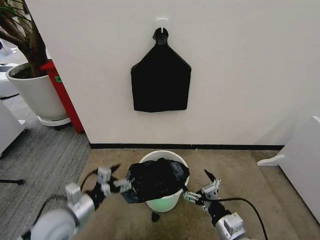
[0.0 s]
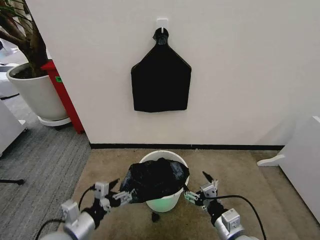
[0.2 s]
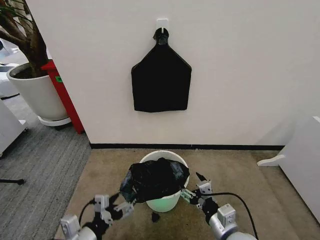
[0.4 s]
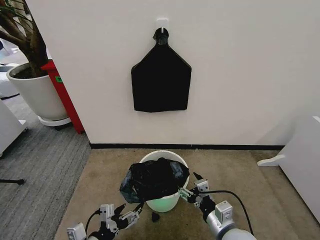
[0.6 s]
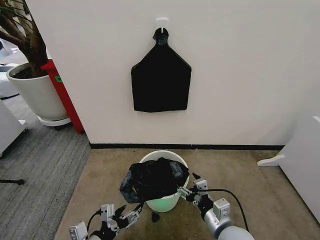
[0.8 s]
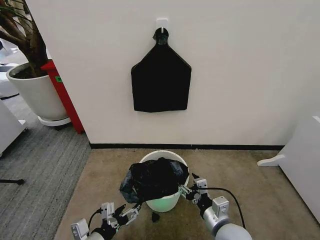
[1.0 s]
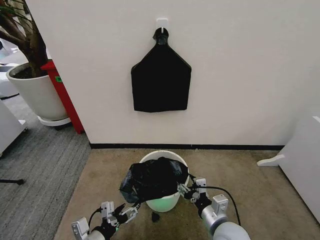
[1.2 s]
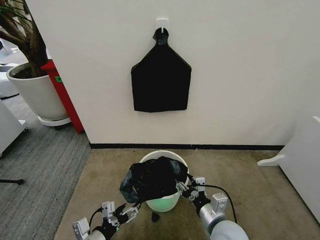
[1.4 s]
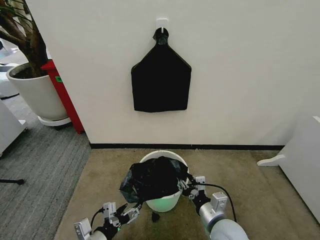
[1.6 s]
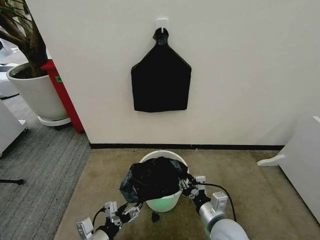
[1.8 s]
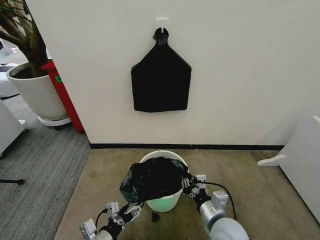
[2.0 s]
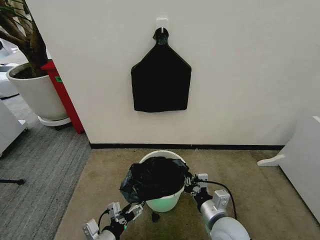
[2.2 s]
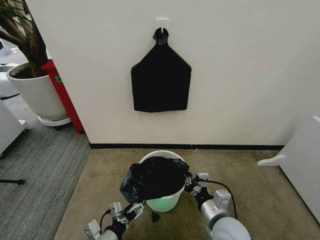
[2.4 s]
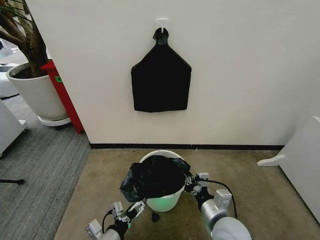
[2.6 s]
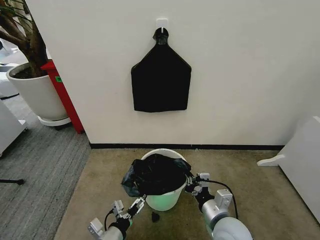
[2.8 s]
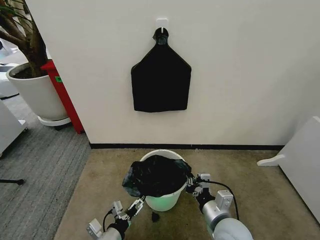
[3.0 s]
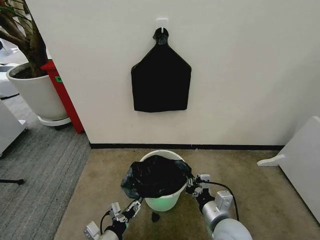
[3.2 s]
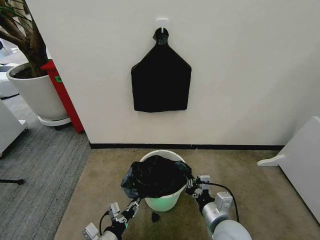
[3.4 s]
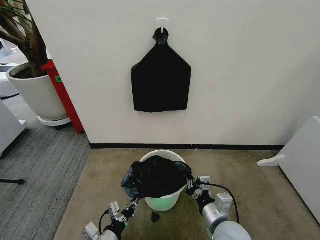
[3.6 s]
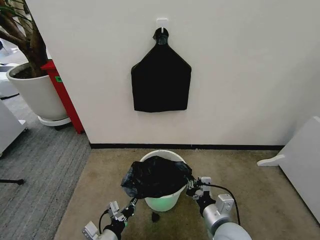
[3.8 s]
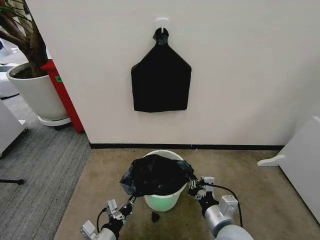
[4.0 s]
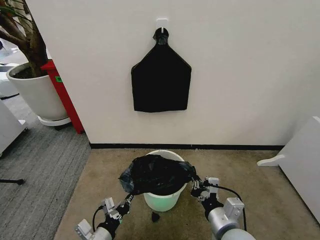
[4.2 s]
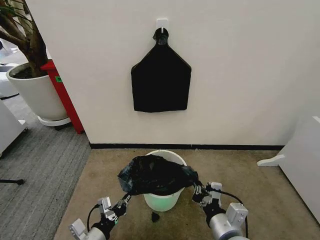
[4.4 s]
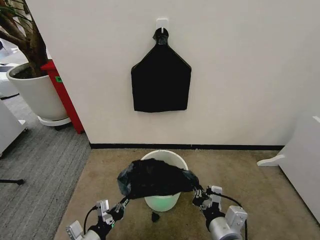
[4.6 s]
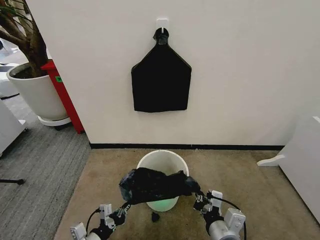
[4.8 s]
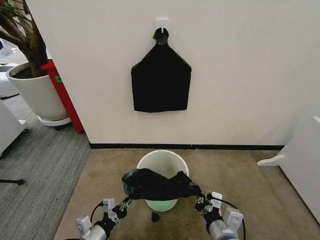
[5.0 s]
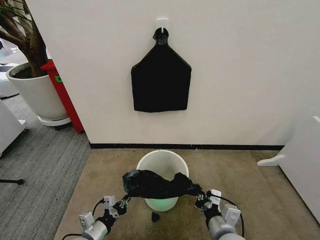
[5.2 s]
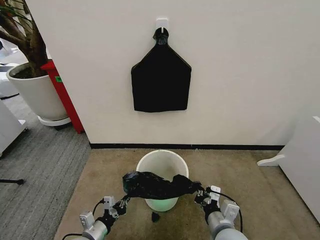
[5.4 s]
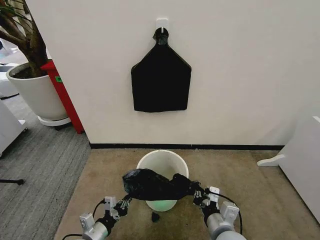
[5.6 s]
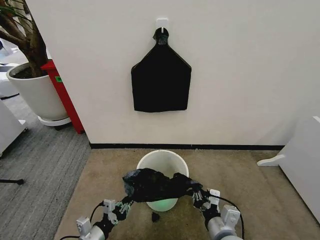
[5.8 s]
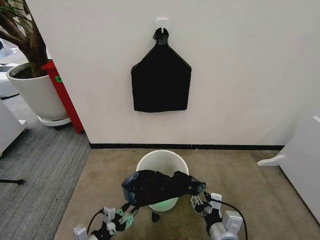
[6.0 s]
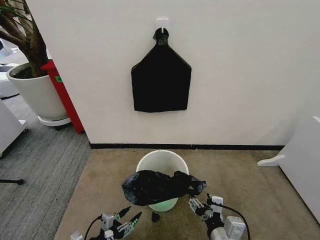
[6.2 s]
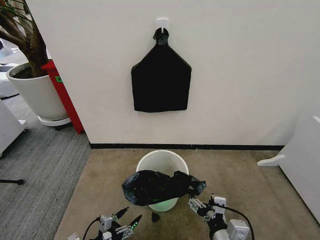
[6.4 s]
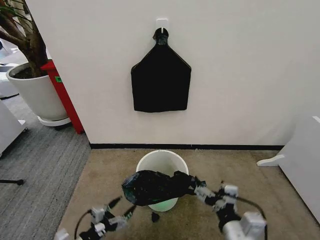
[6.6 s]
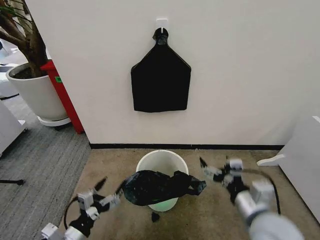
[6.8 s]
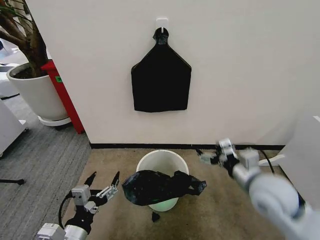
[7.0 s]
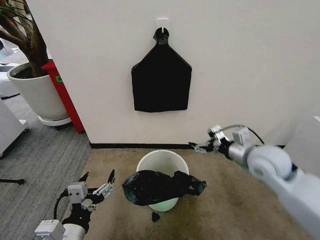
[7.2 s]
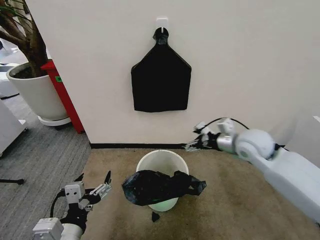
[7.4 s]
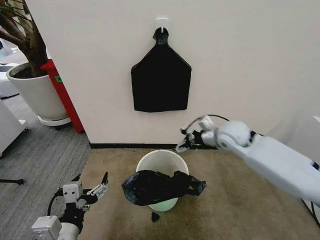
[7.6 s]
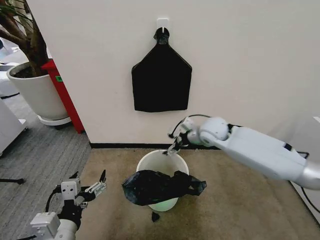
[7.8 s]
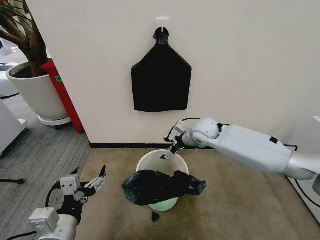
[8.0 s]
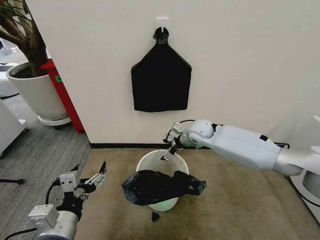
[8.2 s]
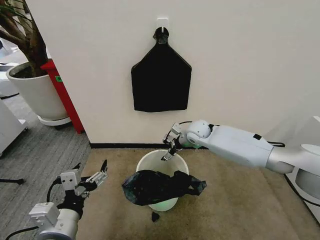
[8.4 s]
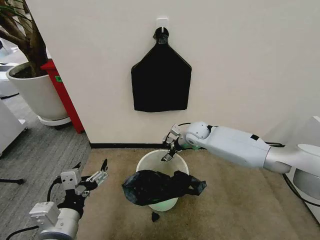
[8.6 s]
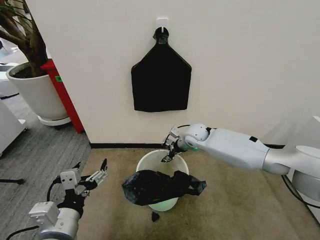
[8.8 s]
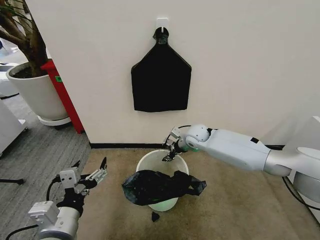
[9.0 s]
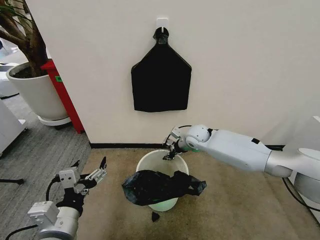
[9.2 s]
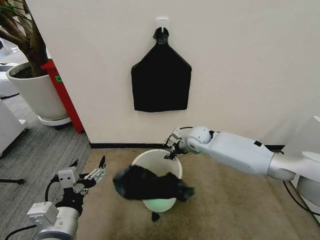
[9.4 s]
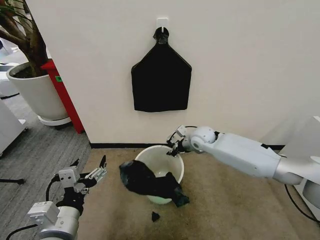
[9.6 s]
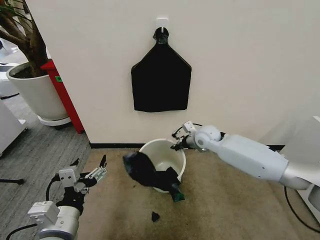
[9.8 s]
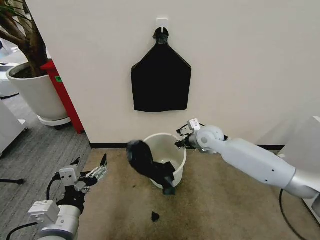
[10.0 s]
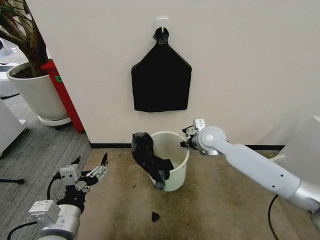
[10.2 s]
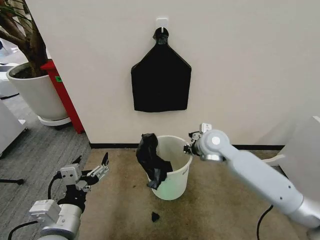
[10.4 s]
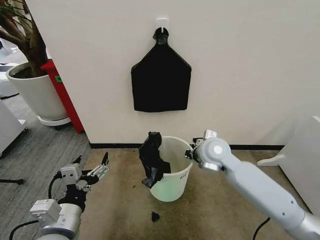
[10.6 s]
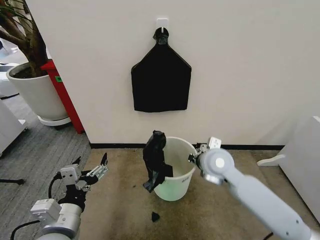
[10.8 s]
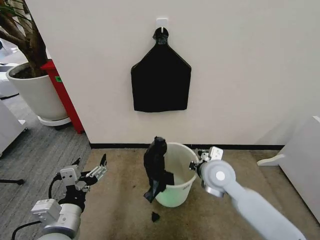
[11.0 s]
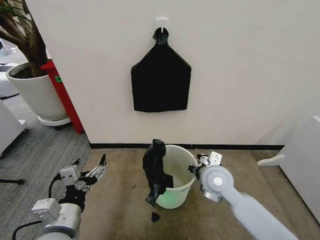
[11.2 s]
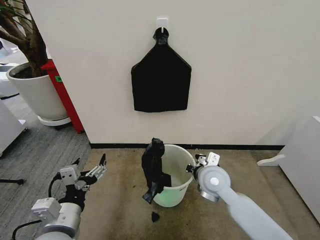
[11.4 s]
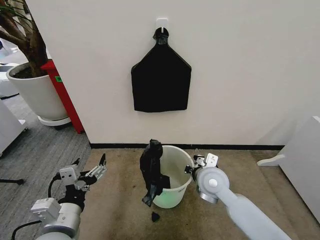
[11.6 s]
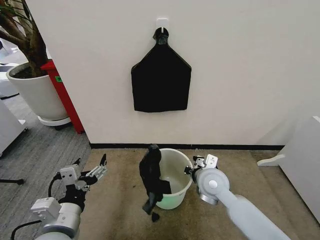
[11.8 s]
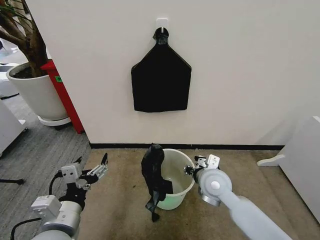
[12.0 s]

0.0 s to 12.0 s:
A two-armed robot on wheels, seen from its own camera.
Task of the whole recording: Place the garbage bag over the trash bin.
0.0 to 1.6 s: The left gripper moves backward and downward, about 10 cm. The right gripper ends up about 5 cm from where it was, and closes its fingers.
1.6 to 3.0 s: The right gripper closes up. Meanwhile the left gripper moves some 5 cm.
3.0 to 4.4 s: The left gripper closes. The right gripper shifts by roughly 5 cm.
4.4 to 6.0 s: The right gripper opens its fingers, while the left gripper moves downward, some 5 cm, and opens its fingers.
6.0 to 7.6 s: The left gripper shifts roughly 20 cm upward, and opens up; the right gripper shifts some 35 cm forward and upward, and opens.
7.6 to 9.0 s: The right gripper shifts some 15 cm downward, to the left and forward, and closes its fingers.
9.0 to 10.4 s: The right gripper is displaced backward and upward by about 10 cm, and closes up.
10.4 to 12.0 s: The right gripper travels backward and downward by about 15 cm, and opens up.

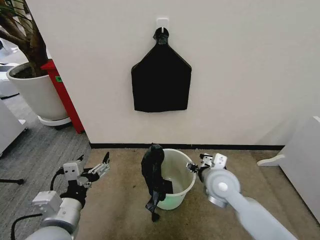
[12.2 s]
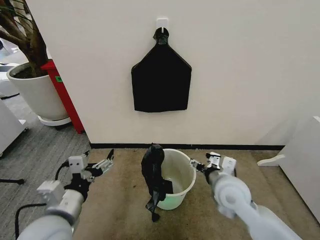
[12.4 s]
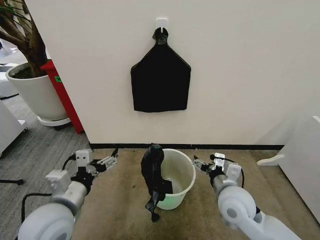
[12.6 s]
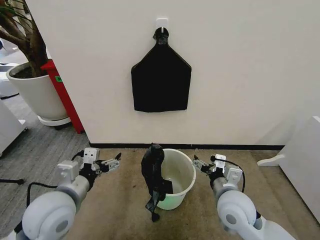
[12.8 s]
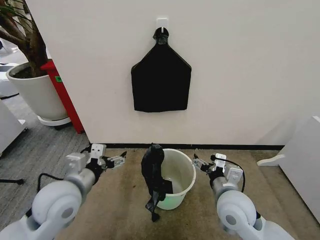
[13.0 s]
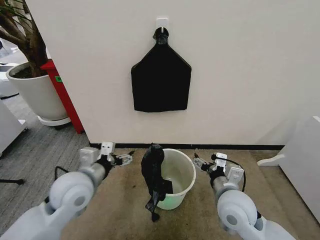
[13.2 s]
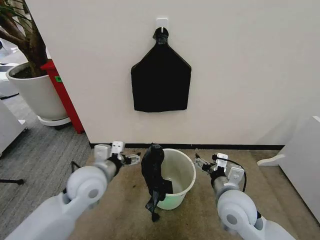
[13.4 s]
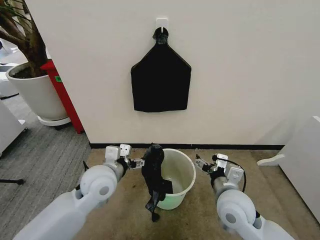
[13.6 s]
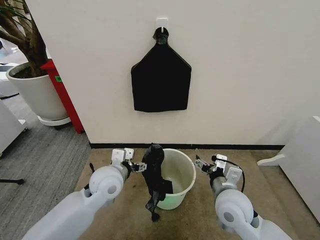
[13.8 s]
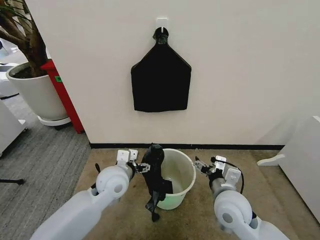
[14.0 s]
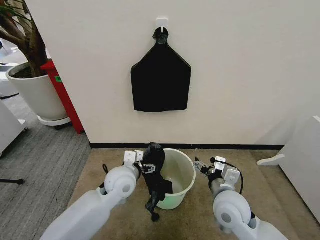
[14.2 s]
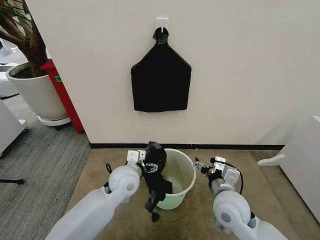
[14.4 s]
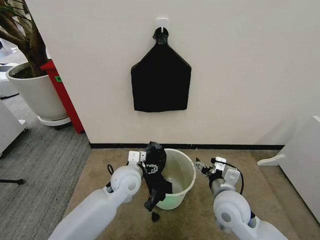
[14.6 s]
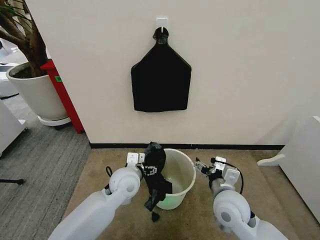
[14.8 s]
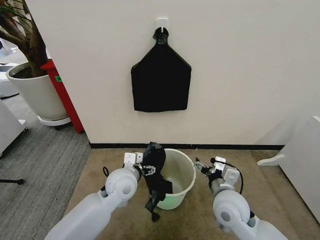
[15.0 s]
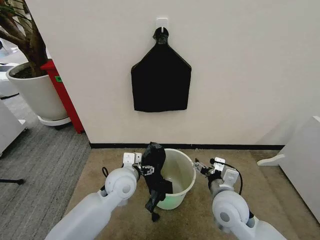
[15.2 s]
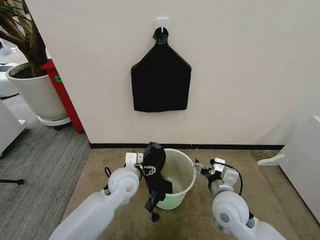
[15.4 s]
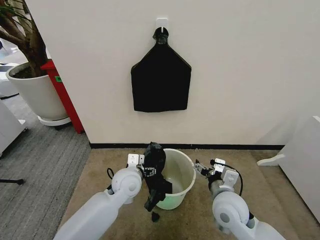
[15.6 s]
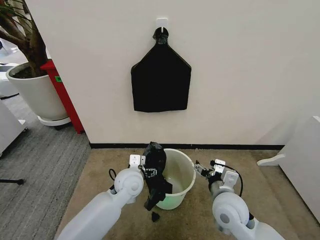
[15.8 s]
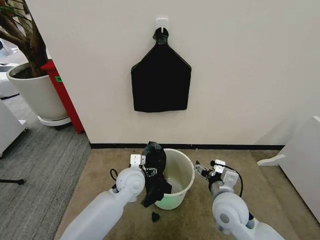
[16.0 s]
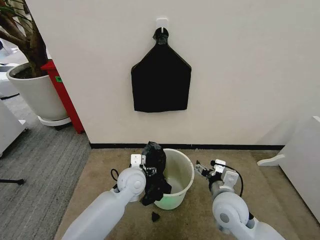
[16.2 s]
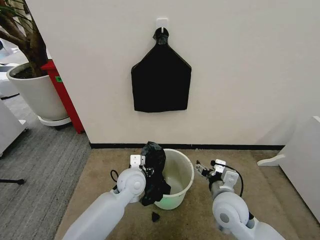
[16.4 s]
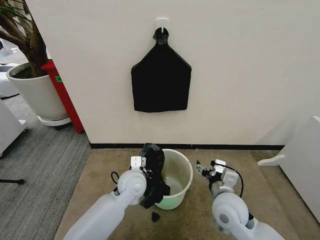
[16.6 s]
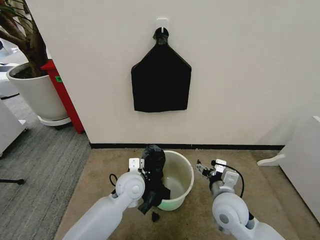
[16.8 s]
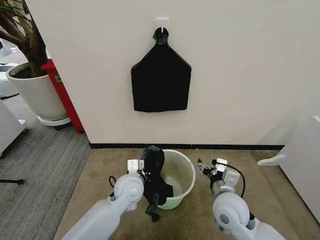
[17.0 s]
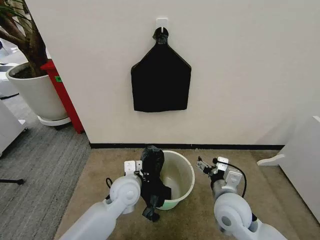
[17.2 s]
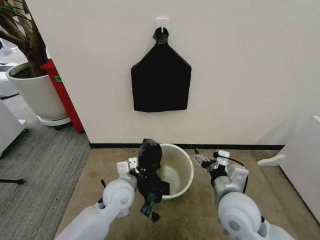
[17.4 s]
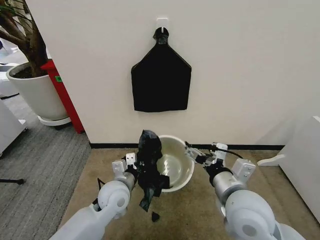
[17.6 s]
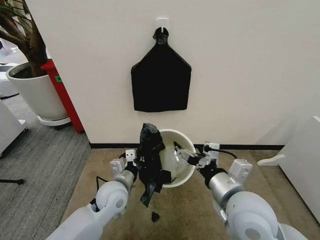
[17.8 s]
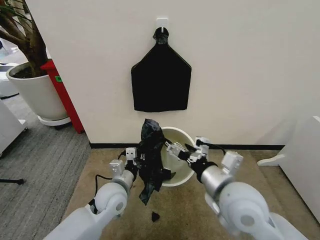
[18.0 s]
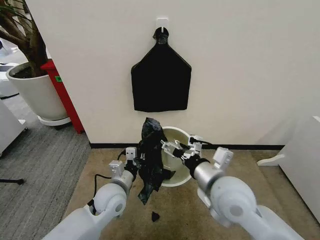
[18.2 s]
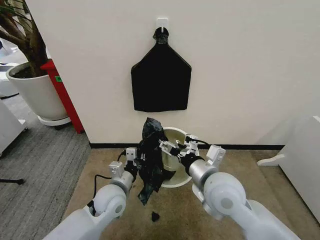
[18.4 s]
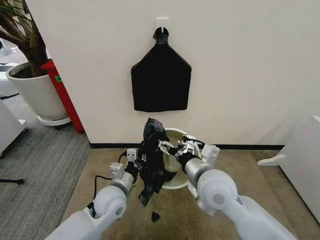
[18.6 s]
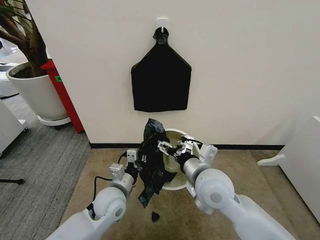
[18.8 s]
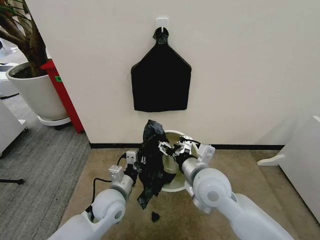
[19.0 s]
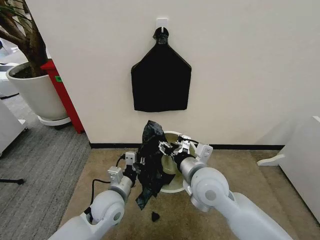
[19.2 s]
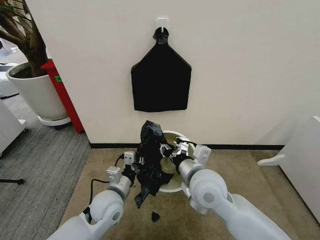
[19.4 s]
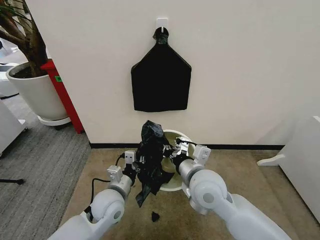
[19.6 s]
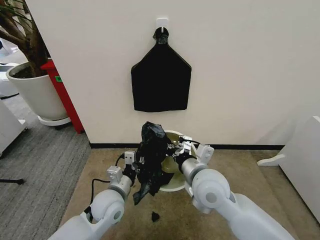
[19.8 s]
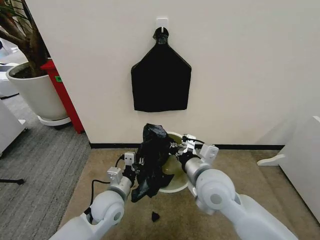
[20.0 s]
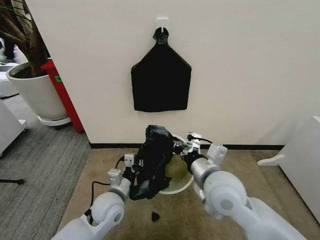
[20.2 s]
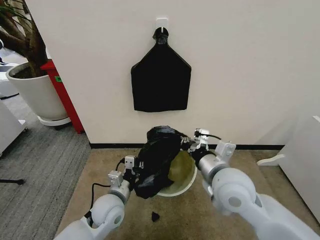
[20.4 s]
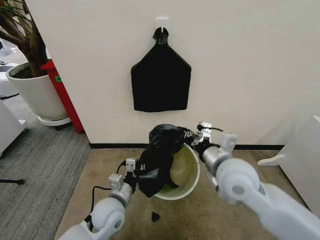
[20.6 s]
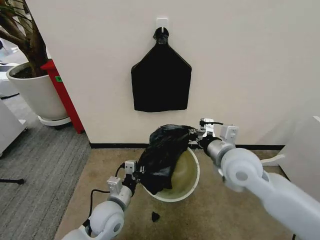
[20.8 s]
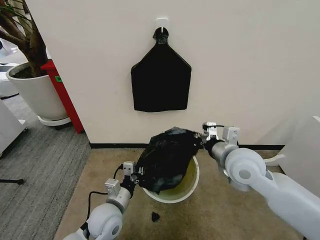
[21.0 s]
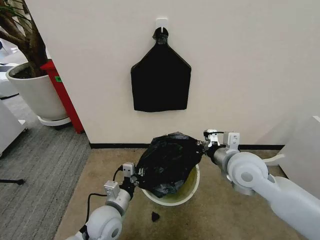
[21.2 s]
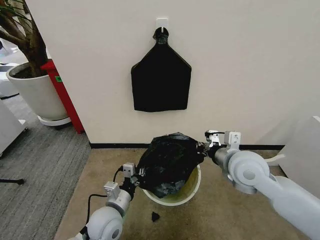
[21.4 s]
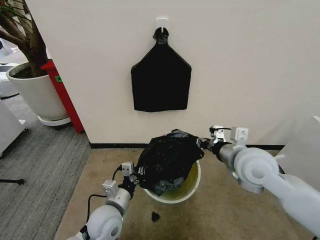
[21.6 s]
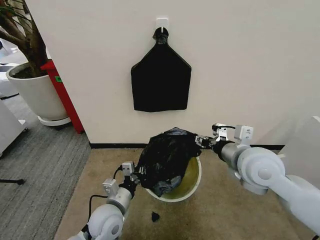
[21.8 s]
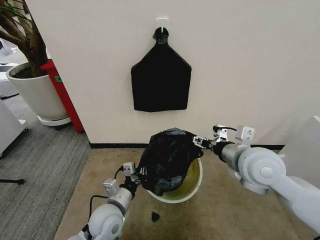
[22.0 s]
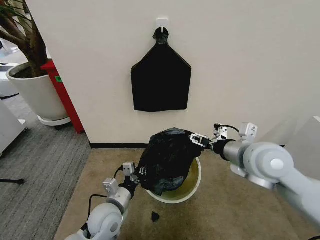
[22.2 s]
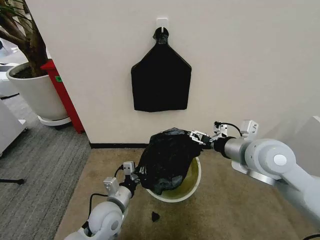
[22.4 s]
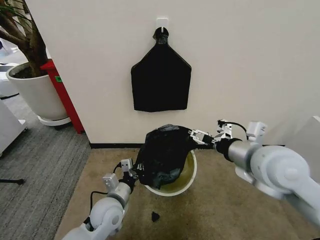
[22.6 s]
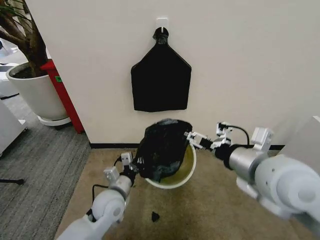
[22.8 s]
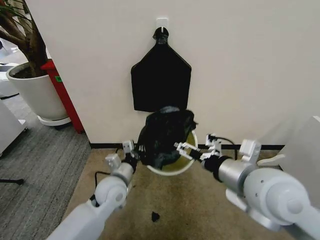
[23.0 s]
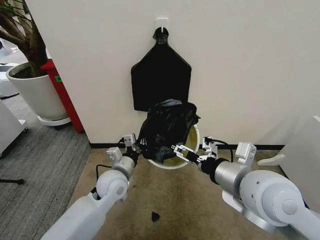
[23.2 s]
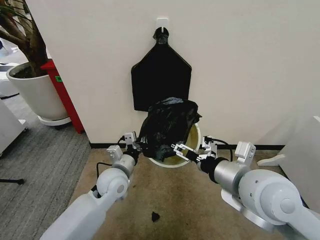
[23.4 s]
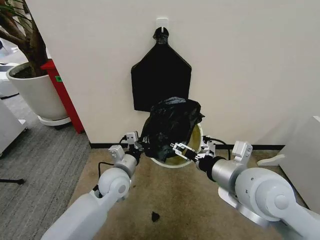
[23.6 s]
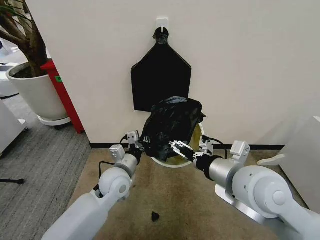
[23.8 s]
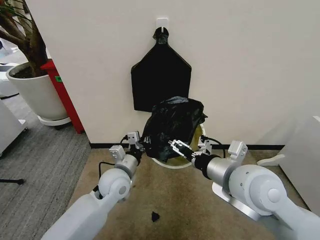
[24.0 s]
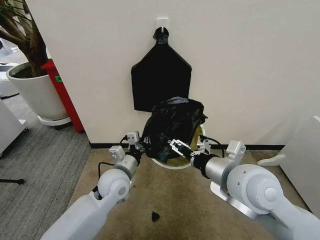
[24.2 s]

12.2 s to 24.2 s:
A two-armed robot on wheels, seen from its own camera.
Task of the whole recording: Place the garbage bag over the trash bin.
12.2 to 13.8 s: The right gripper shifts some 5 cm backward. The left gripper shifts approximately 20 cm forward and to the right.
15.2 to 16.6 s: The left gripper shifts by roughly 5 cm, and closes its fingers.
16.6 to 18.2 s: The right gripper moves upward, about 10 cm. Meanwhile the left gripper goes approximately 5 cm to the left, and closes its fingers.
18.2 to 19.8 s: The right gripper shifts by some 5 cm, and closes.
19.8 to 21.2 s: The right gripper shifts approximately 10 cm to the right.
21.2 to 22.6 s: The right gripper heads upward, covering approximately 10 cm, and opens up.
22.6 to 24.2 s: The right gripper moves to the left, approximately 5 cm. The left gripper goes about 10 cm forward and upward.
